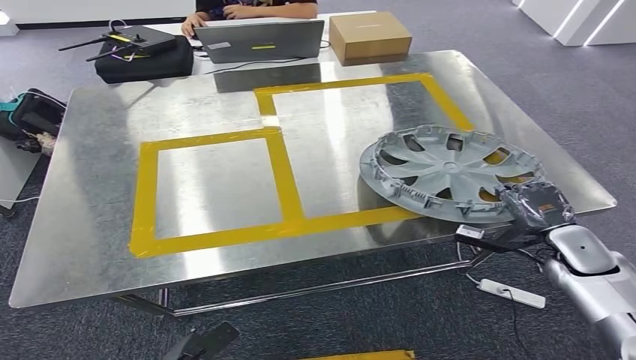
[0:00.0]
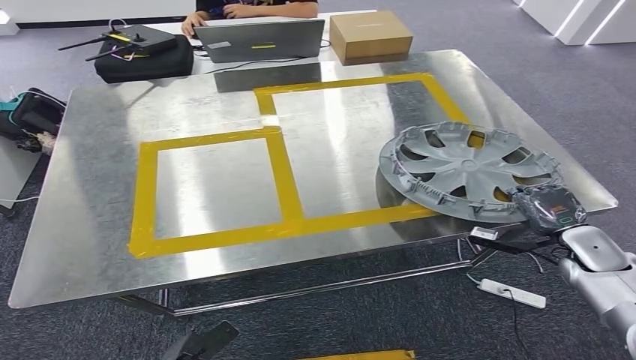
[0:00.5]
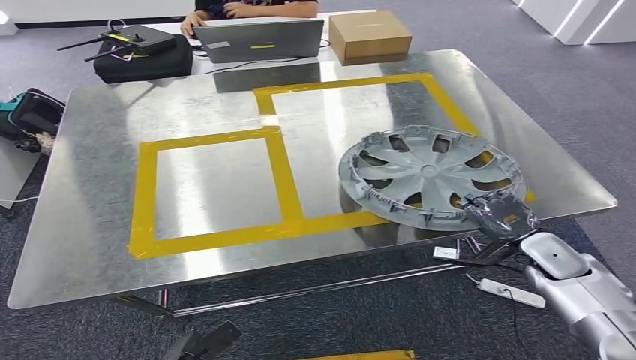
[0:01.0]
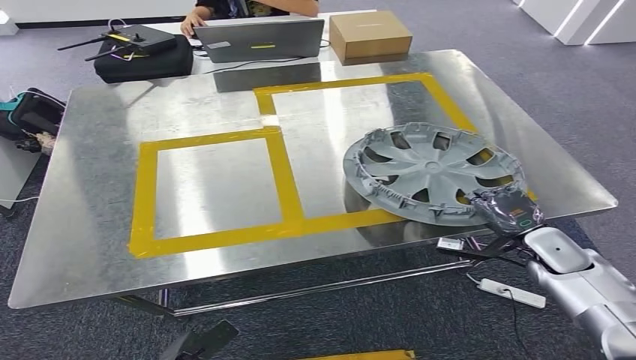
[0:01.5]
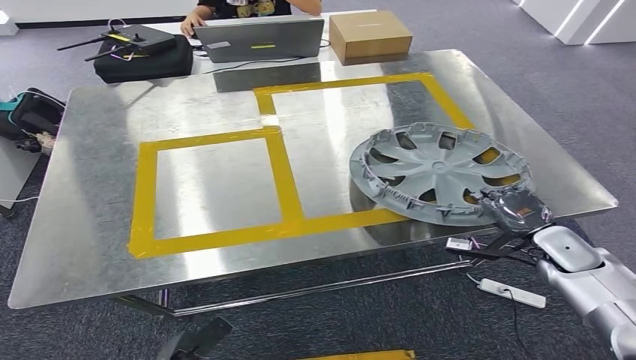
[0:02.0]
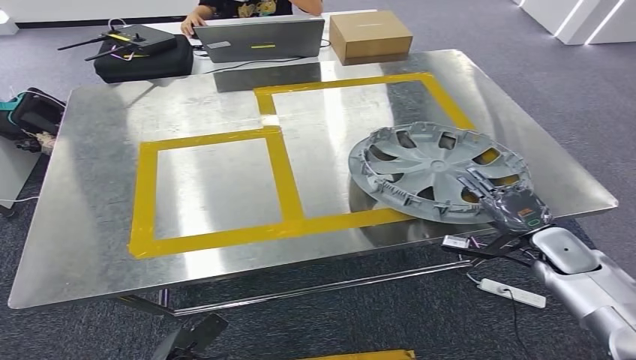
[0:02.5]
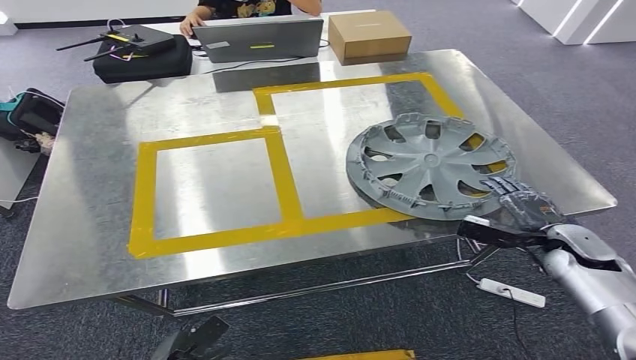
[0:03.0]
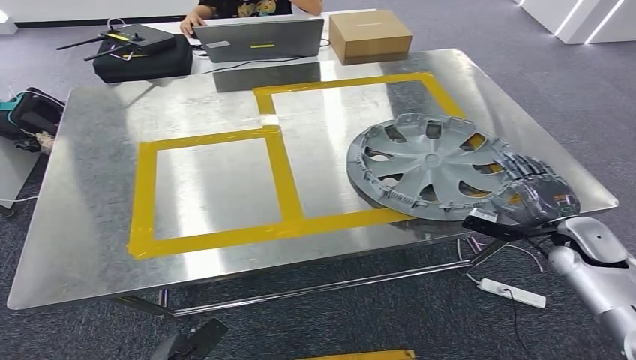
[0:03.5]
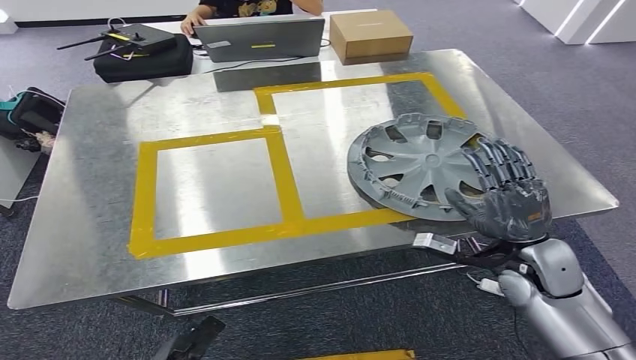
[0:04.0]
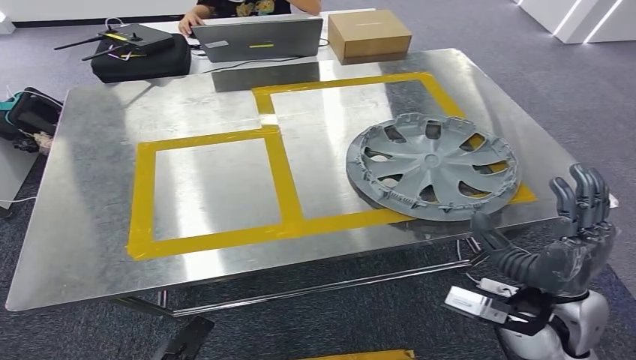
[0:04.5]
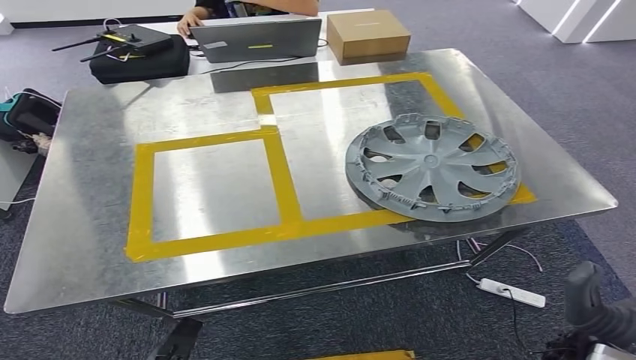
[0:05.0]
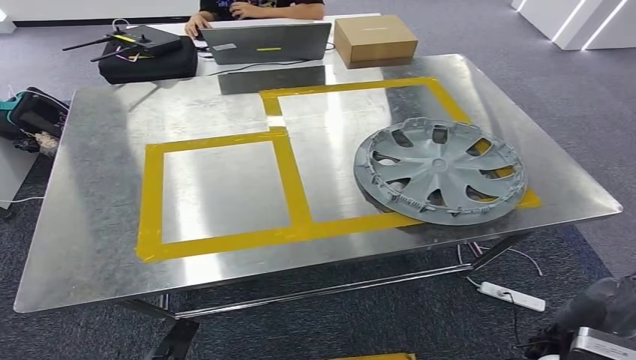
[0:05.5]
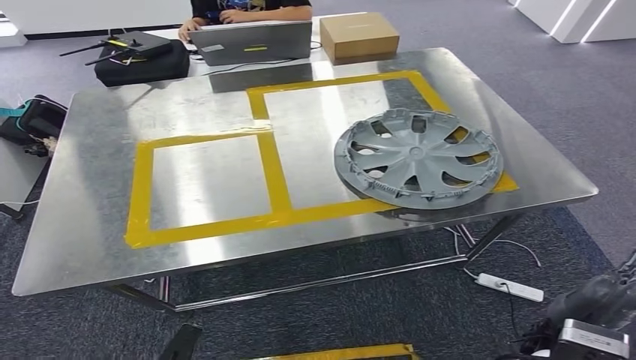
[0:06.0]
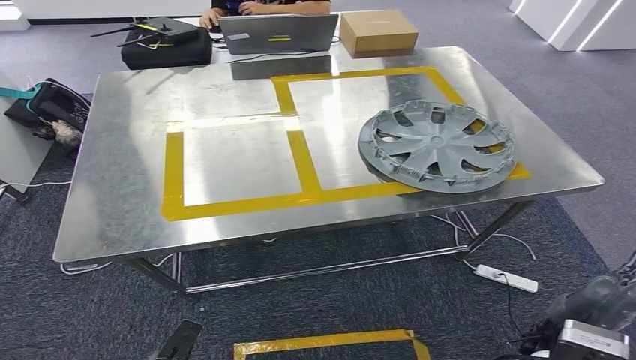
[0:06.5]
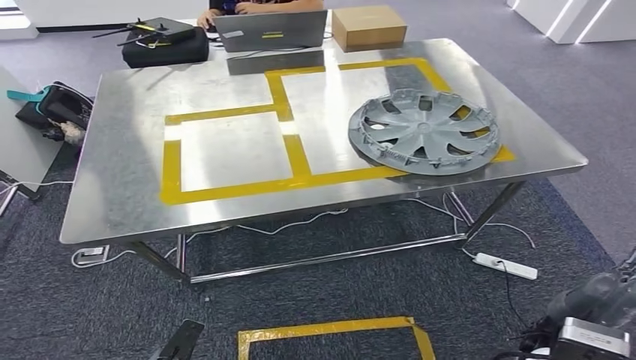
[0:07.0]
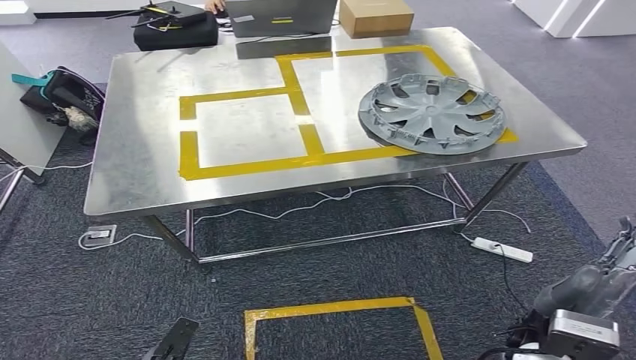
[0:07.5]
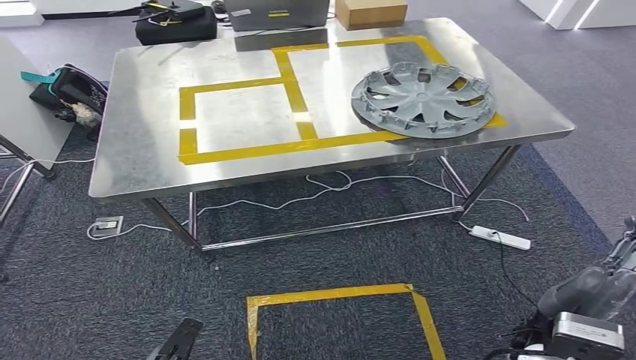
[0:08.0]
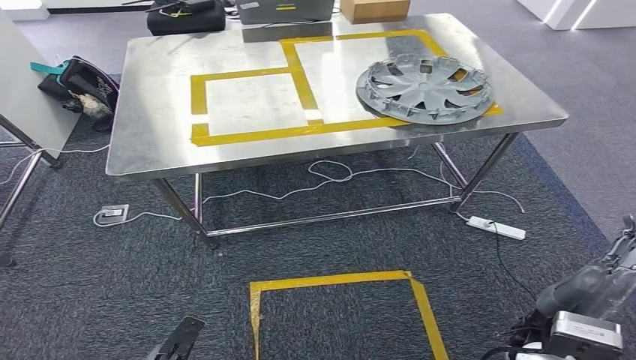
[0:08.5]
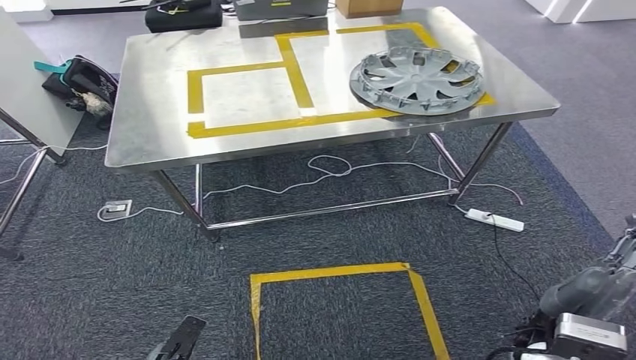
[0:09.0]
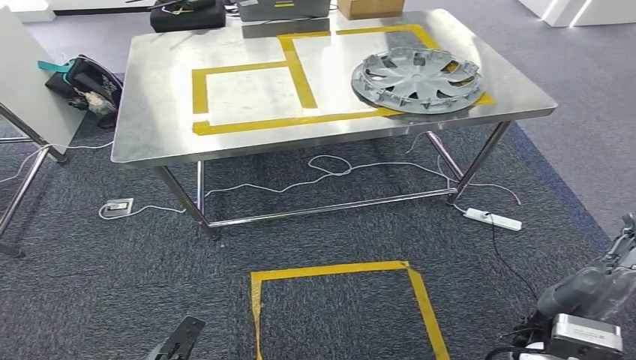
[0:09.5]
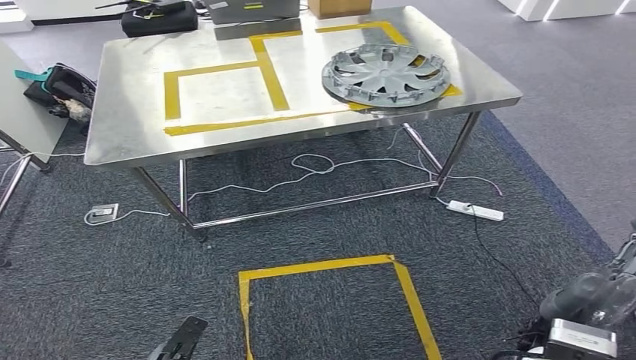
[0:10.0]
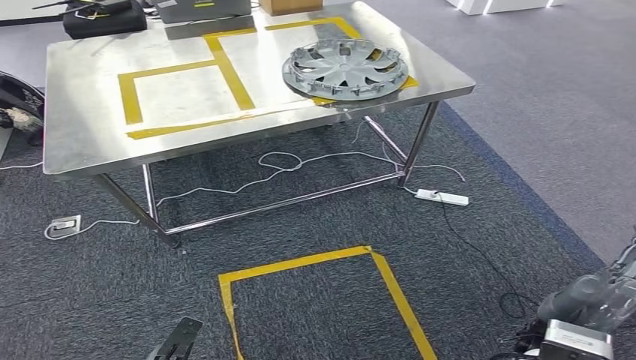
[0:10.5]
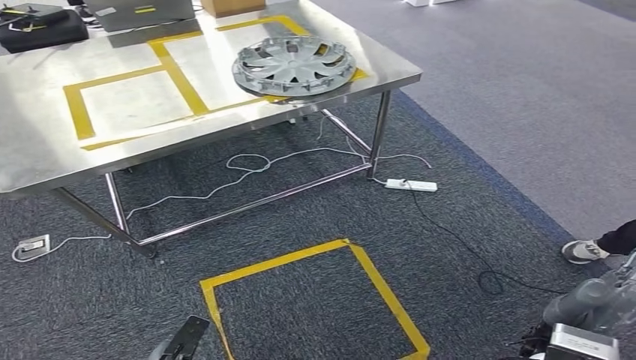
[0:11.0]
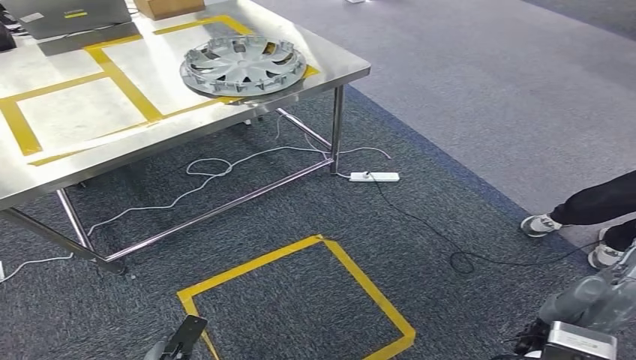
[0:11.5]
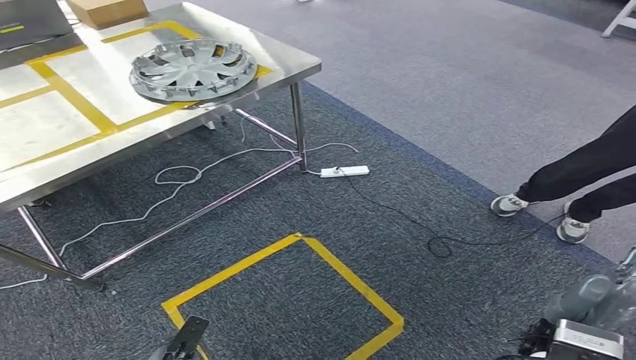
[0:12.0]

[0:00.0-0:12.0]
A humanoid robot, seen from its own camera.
Step, 0:00.0 to 0:04.0: Insert the small parts into the corresponding holes on the workbench.
0:00.0 to 0:02.0: The hands move only a little.
0:02.0 to 0:04.0: The right hand shifts some 10 cm to the left and upward.

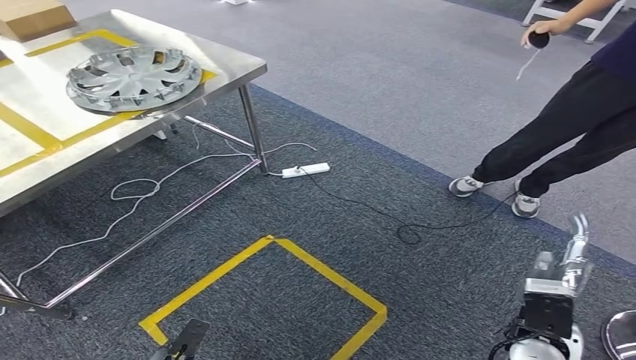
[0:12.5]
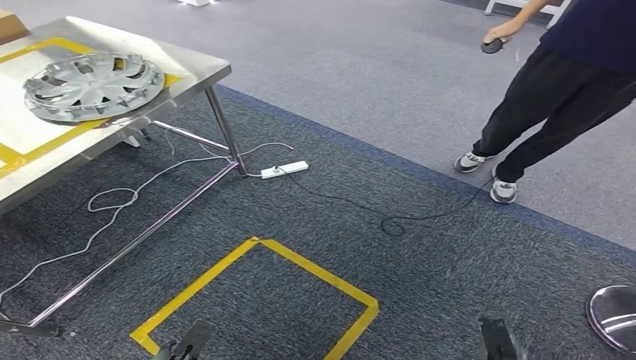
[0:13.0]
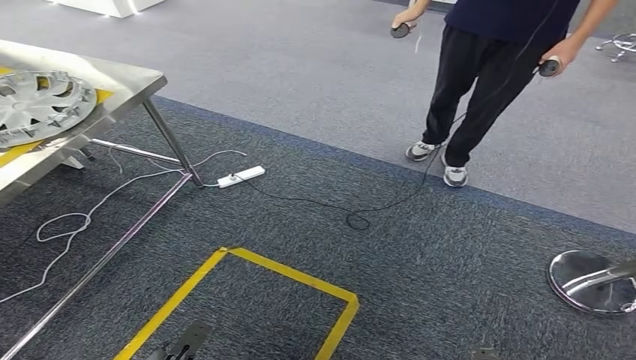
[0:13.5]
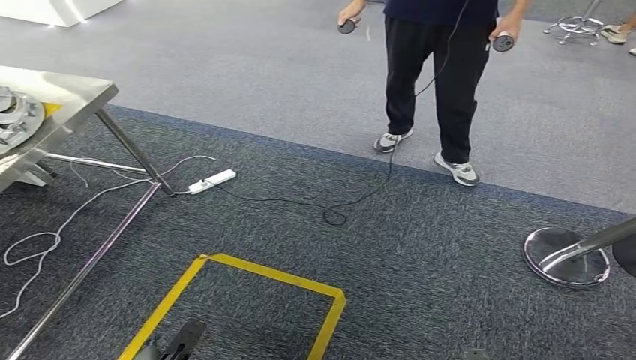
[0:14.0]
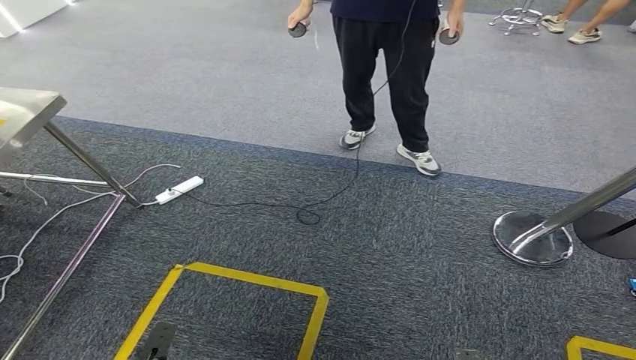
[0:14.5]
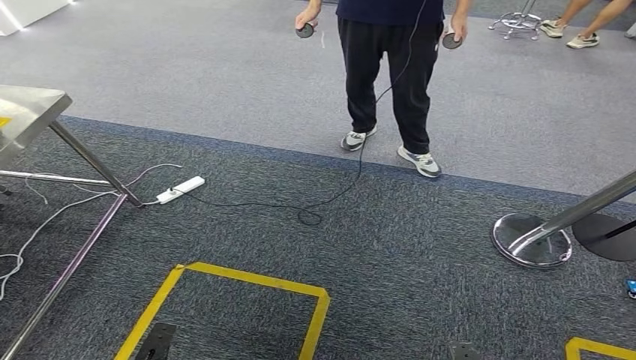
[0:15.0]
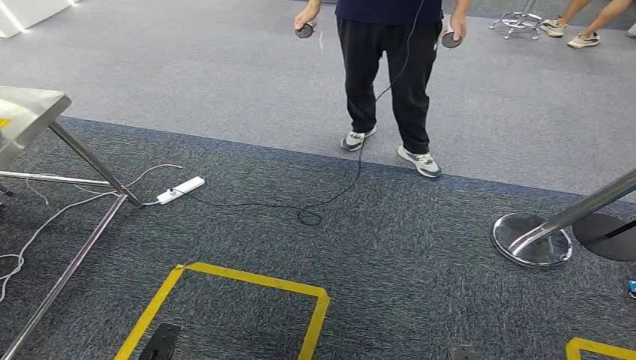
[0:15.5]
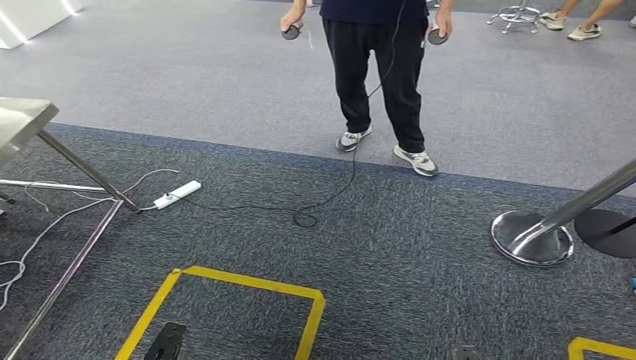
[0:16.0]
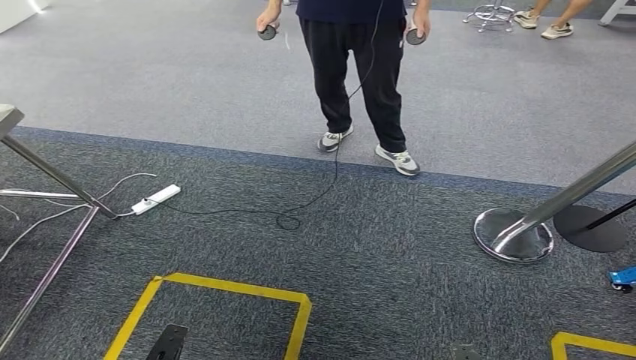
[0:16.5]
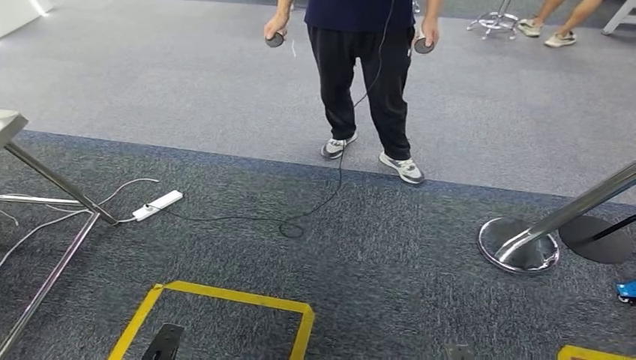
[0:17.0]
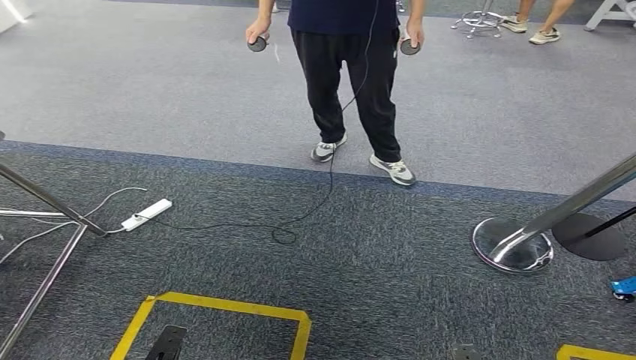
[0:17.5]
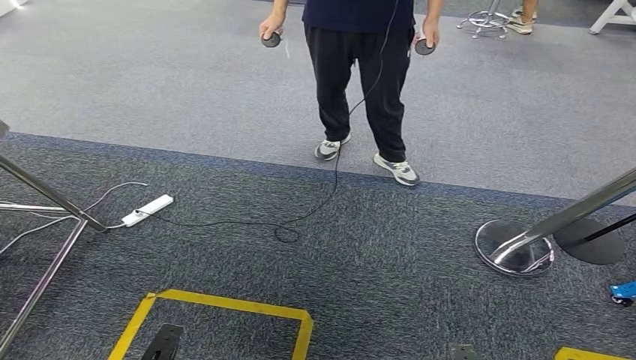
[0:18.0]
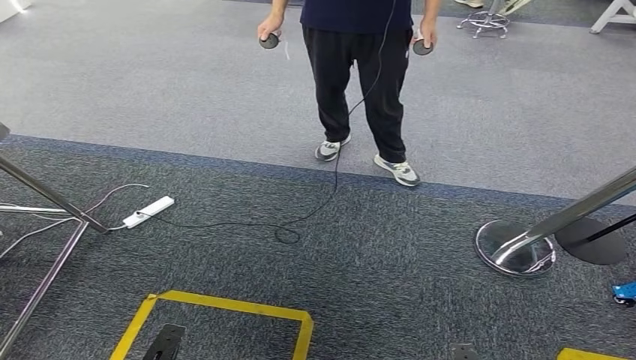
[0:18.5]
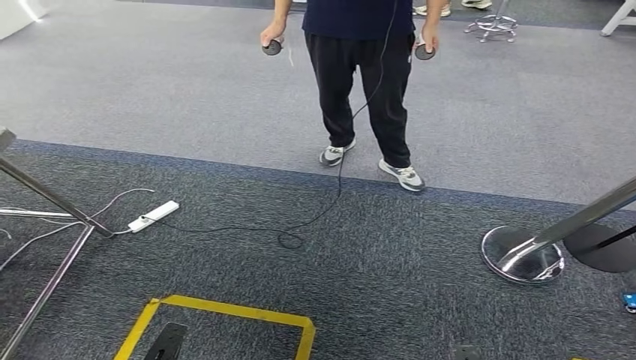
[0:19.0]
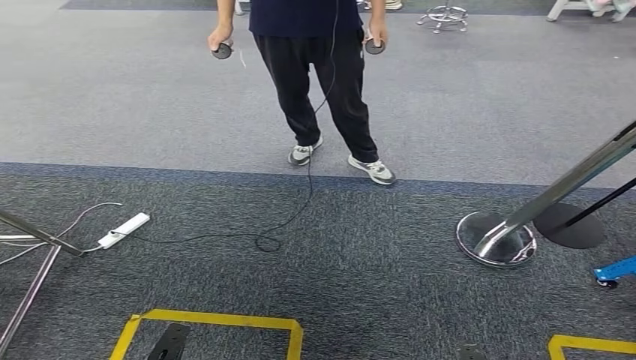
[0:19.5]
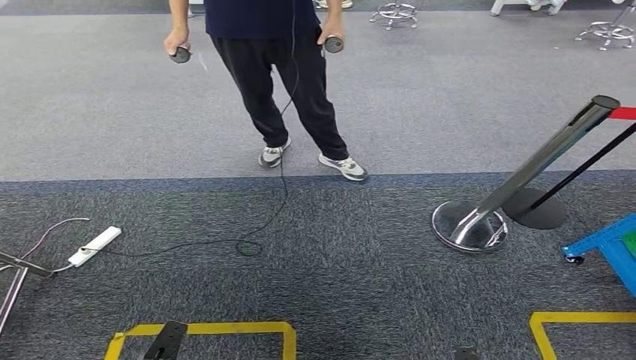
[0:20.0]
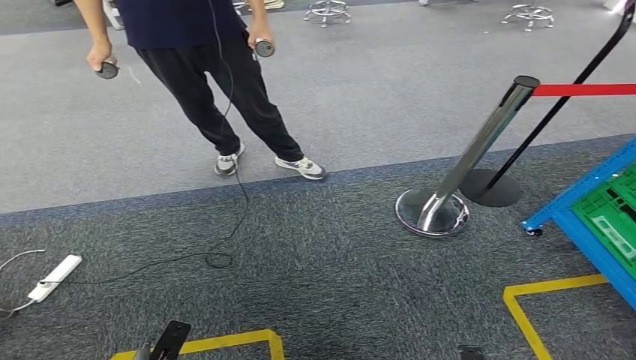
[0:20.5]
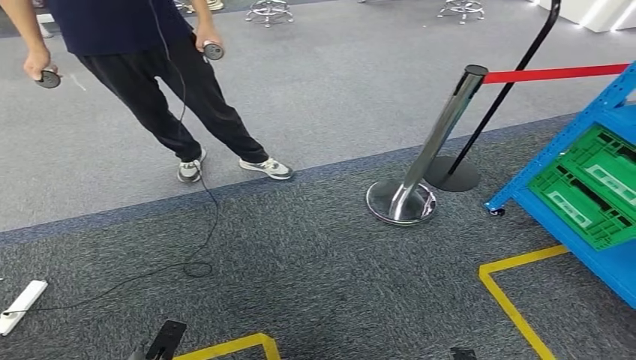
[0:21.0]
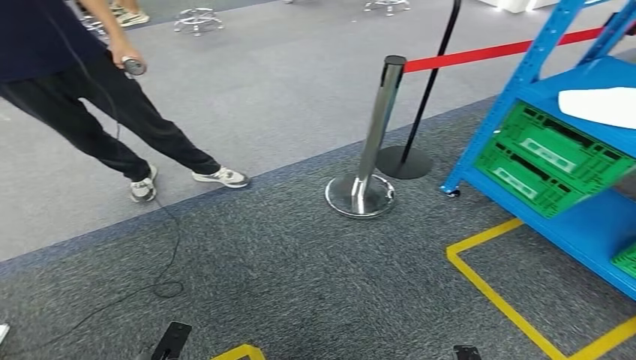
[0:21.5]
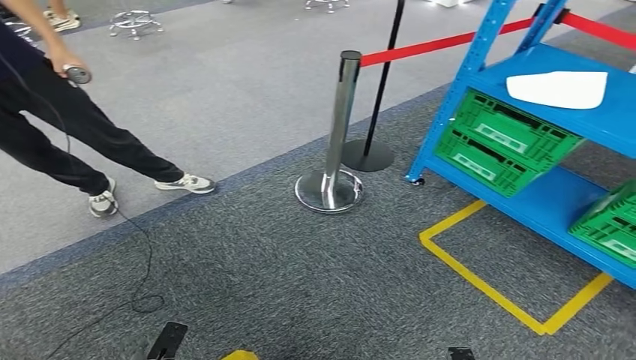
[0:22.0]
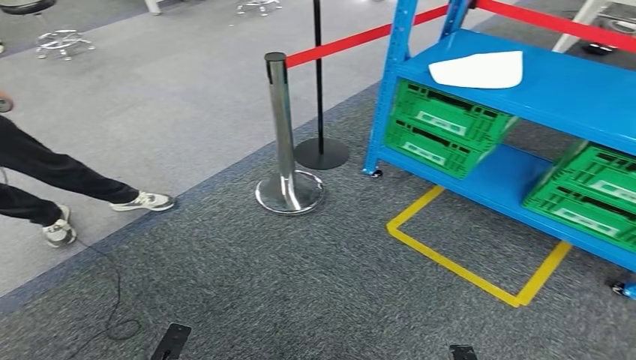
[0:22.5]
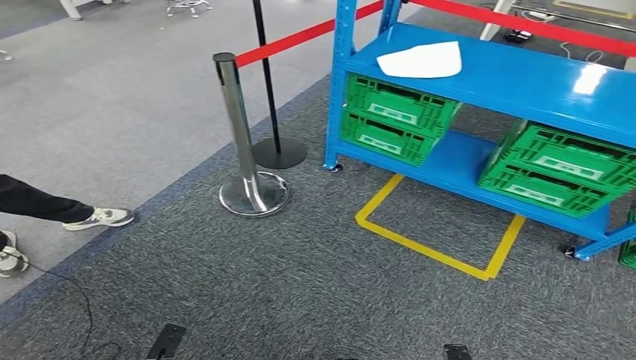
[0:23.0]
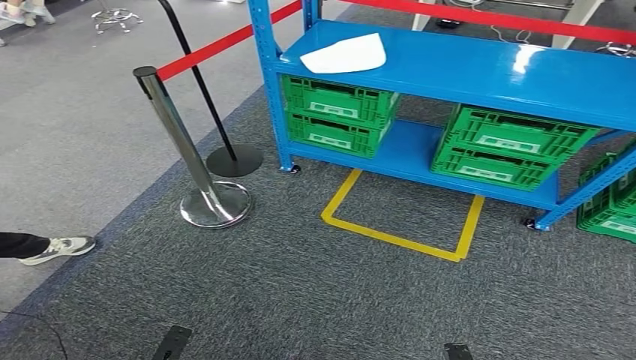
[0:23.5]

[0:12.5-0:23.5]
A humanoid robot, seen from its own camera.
Step, 0:12.5 to 0:23.5: Move to the initial position at the workbench.
0:14.5 to 0:16.0: The hands make only small movements.
